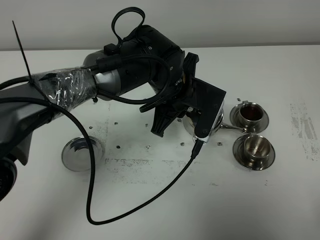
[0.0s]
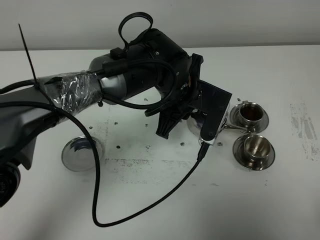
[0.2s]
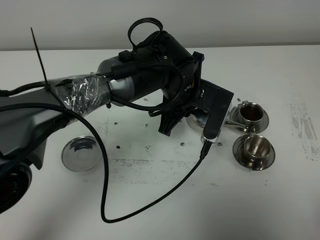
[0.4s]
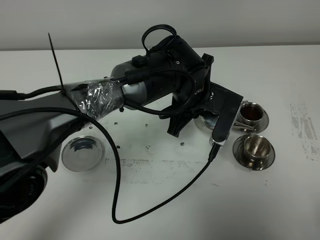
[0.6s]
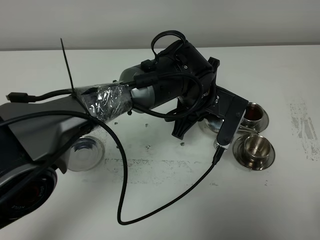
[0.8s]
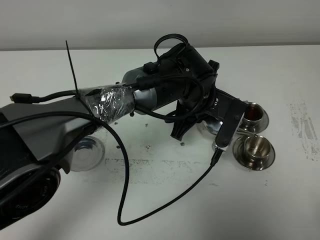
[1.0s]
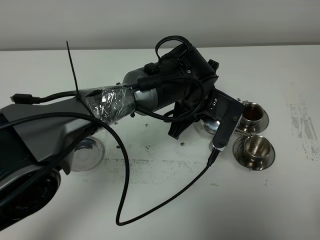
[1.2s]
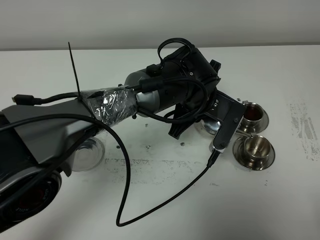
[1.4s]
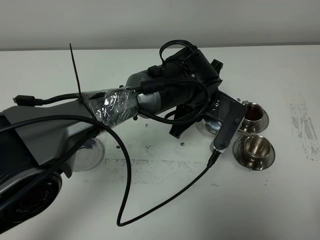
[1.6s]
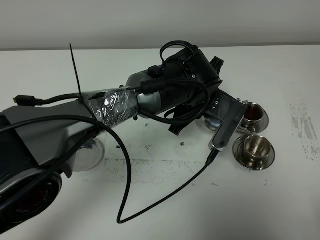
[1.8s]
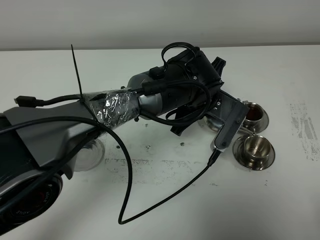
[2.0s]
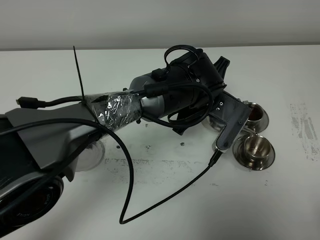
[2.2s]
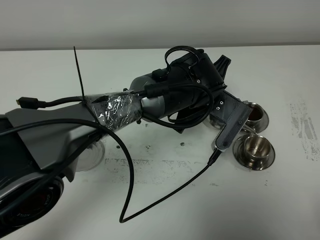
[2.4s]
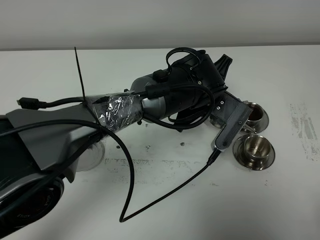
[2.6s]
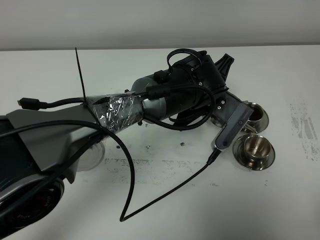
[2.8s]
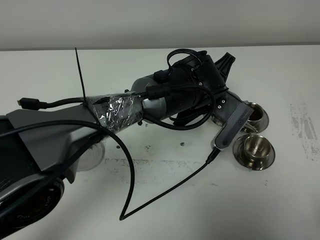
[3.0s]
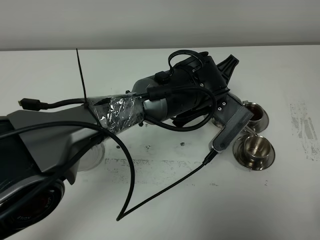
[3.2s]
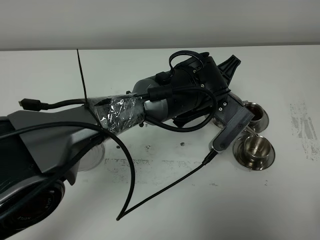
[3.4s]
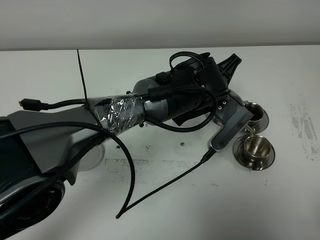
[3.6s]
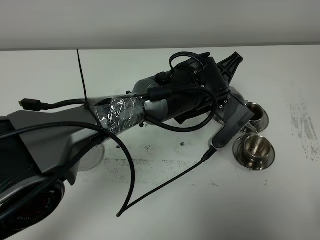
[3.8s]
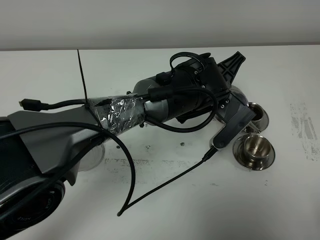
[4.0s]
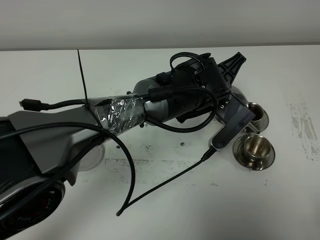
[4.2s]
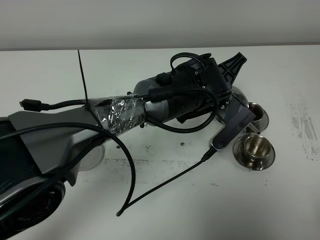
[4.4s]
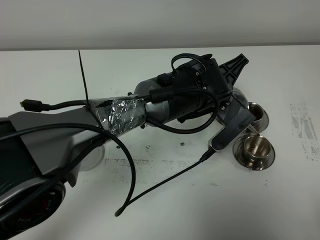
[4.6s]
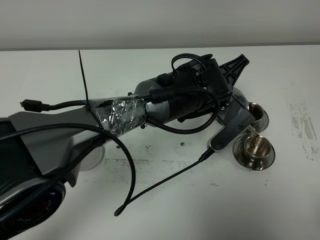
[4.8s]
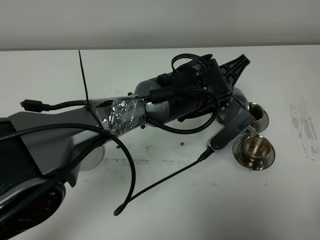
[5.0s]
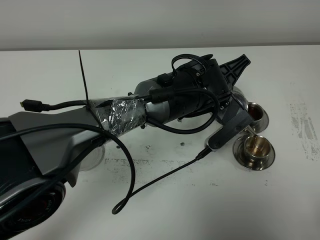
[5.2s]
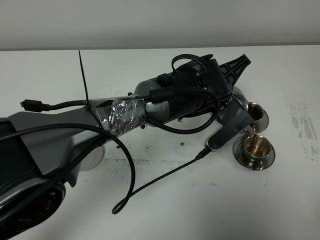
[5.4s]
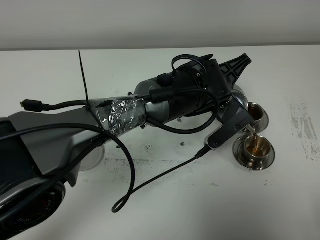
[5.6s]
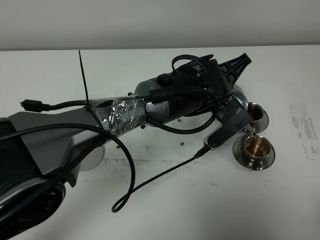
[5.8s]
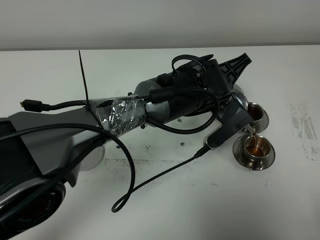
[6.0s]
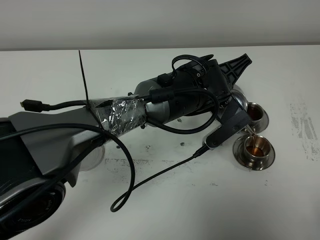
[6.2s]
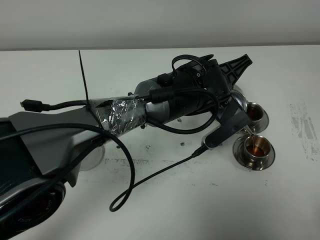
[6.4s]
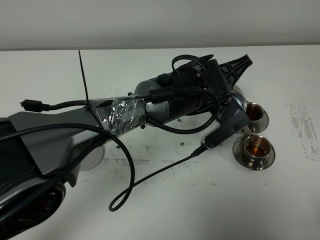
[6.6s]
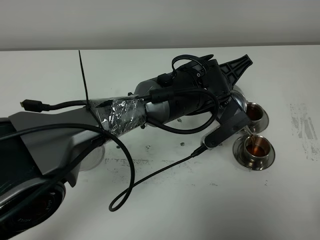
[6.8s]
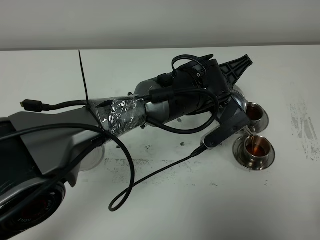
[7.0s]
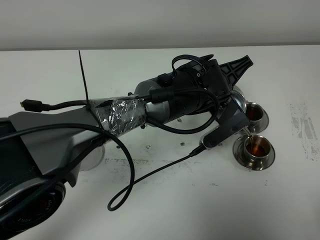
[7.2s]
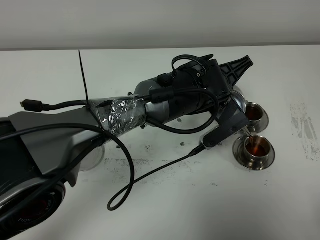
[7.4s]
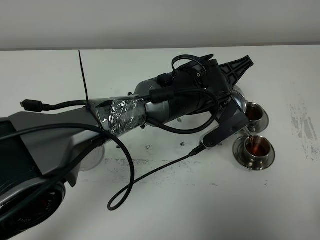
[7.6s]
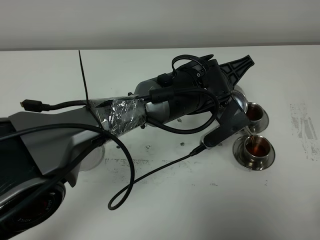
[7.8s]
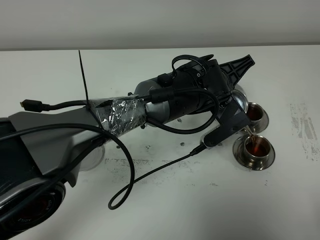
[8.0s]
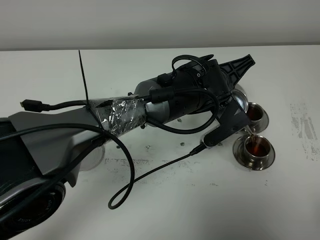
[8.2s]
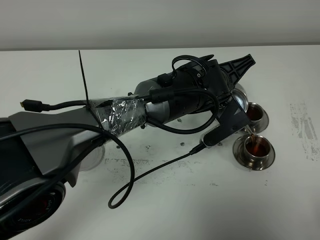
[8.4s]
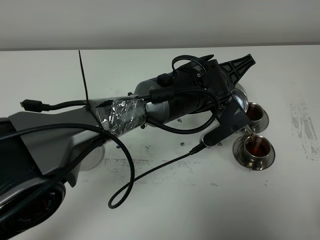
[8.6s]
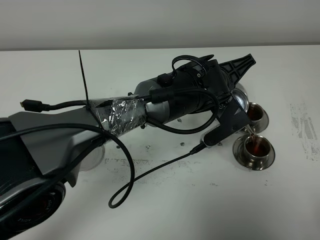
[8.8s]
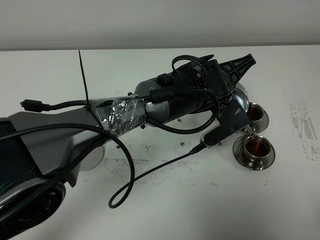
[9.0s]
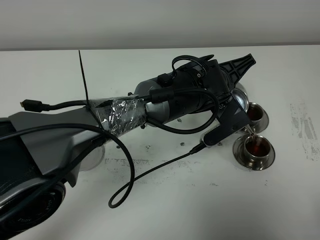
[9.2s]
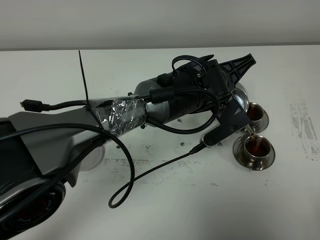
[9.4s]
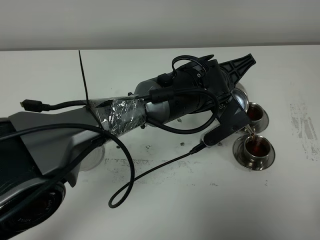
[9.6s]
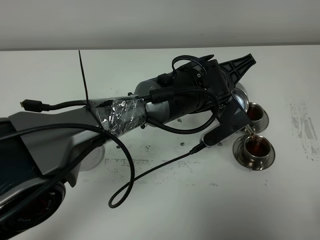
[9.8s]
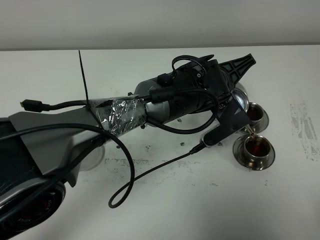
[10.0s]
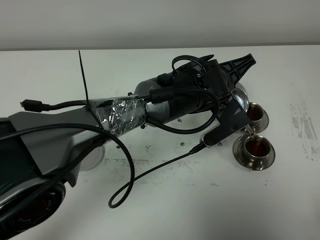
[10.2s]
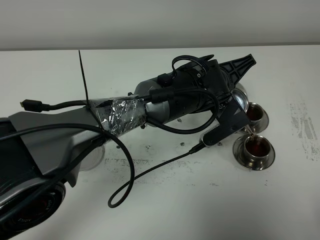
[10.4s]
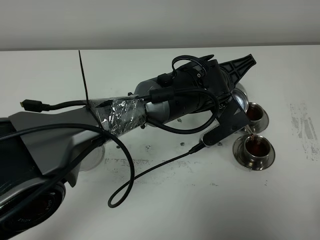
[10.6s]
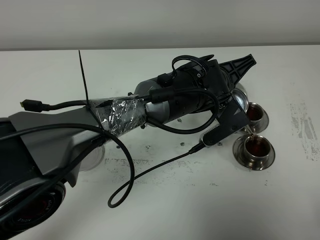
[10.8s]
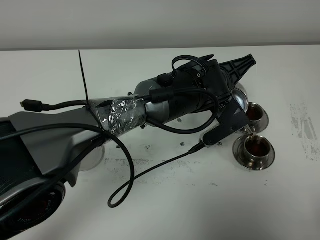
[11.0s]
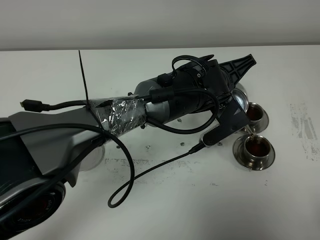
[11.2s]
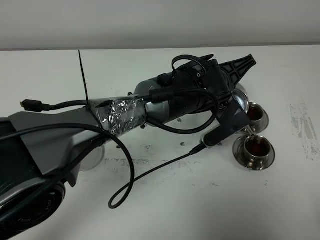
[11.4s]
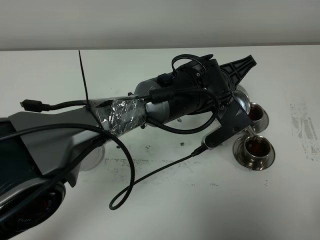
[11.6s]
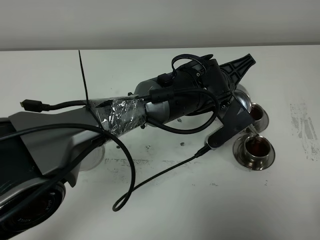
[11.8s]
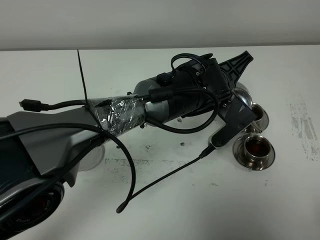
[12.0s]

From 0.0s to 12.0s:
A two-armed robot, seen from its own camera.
Task of the whole recording: grasp the stainless steel teapot and pour the tea into the two stainless steel teacups one by one, put the stainless steel teapot back in its original place.
From 1.6s to 4.4s: There are only small adjustments of the grippers.
From 4.4s to 6.0s: The grippers stay close to where they were, moving slightly.
From 6.0s to 7.6s: Both grippers stay put.
From 7.6s to 10.4s: Neither gripper changes place.
From 10.4s to 12.0s: The grippers stay close to where they were, moving slightly.

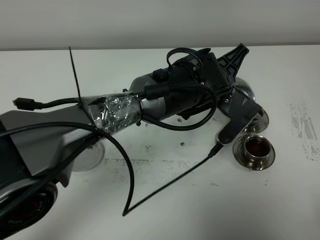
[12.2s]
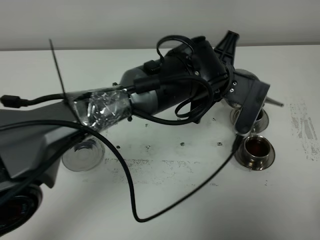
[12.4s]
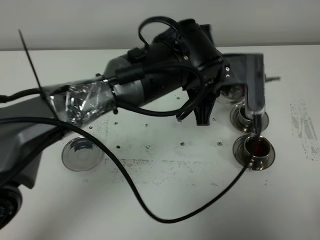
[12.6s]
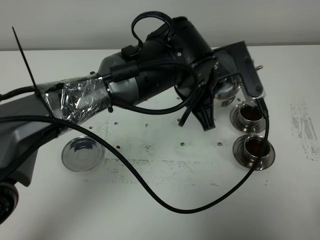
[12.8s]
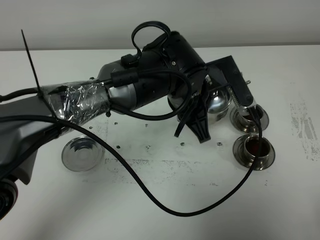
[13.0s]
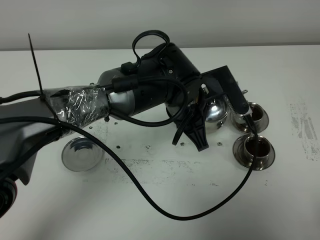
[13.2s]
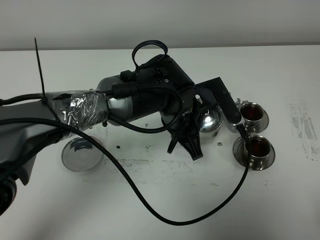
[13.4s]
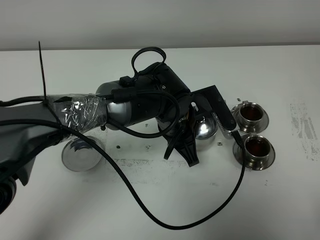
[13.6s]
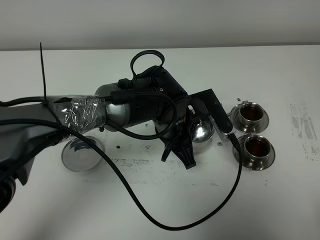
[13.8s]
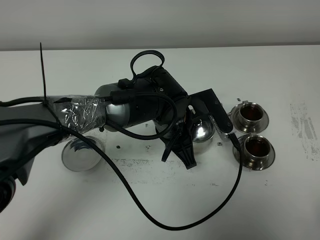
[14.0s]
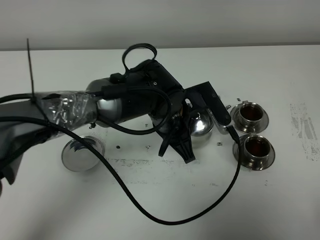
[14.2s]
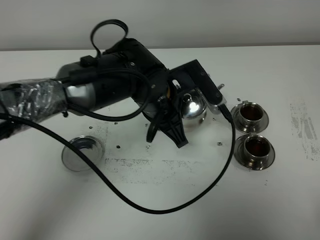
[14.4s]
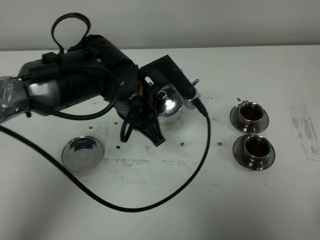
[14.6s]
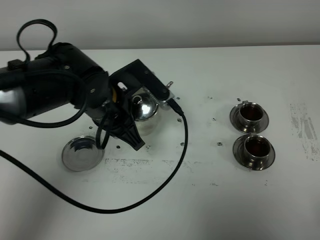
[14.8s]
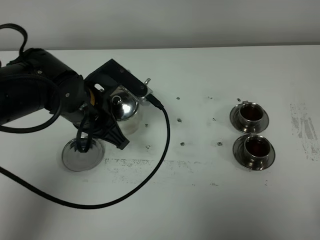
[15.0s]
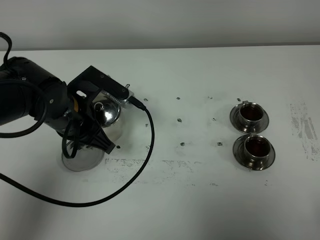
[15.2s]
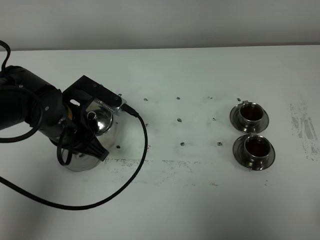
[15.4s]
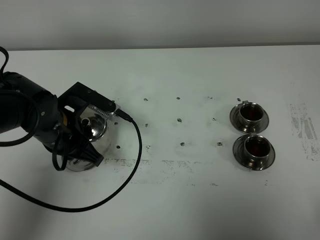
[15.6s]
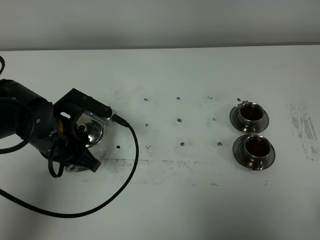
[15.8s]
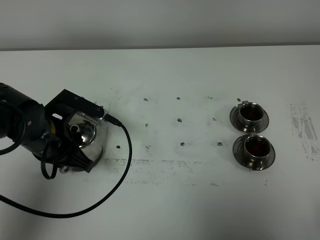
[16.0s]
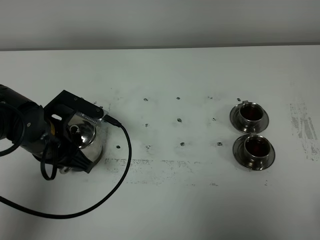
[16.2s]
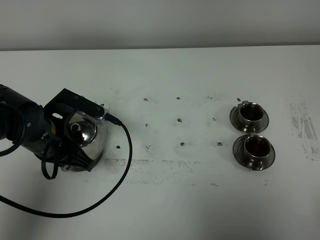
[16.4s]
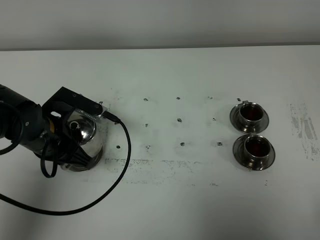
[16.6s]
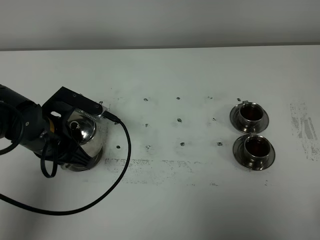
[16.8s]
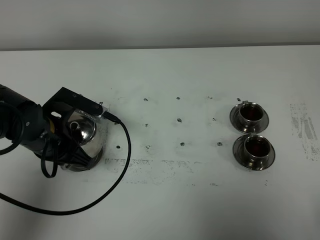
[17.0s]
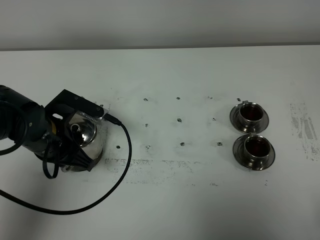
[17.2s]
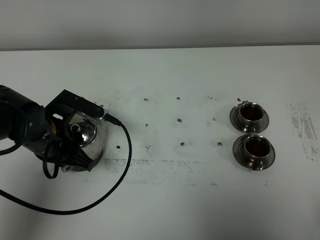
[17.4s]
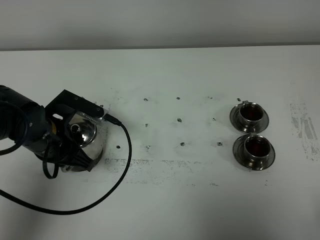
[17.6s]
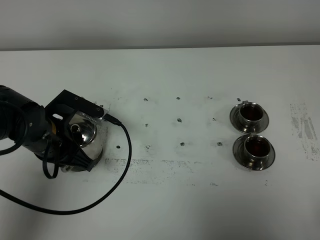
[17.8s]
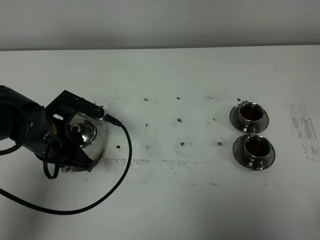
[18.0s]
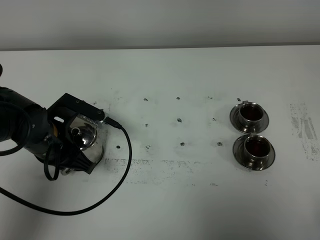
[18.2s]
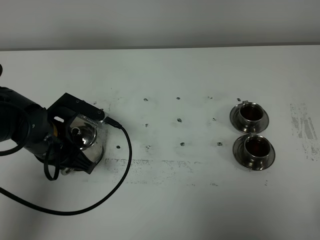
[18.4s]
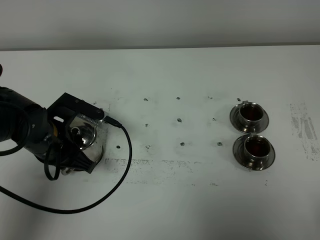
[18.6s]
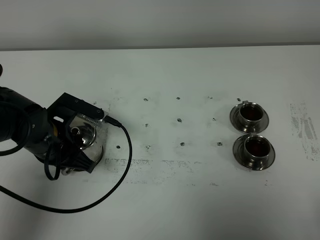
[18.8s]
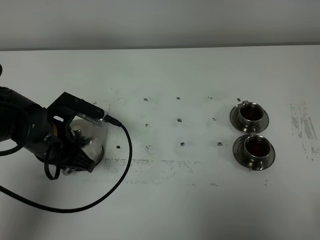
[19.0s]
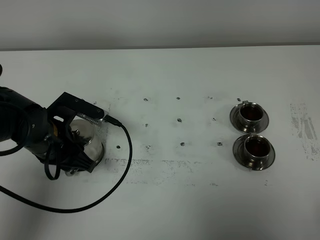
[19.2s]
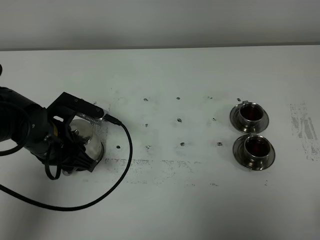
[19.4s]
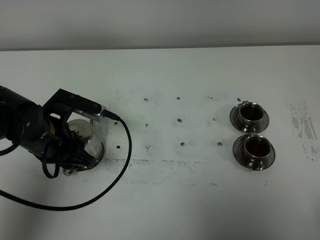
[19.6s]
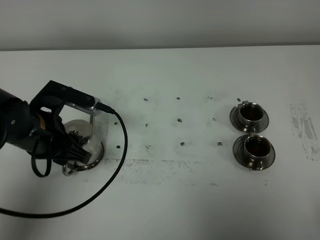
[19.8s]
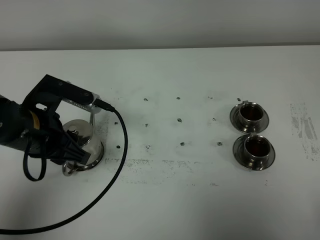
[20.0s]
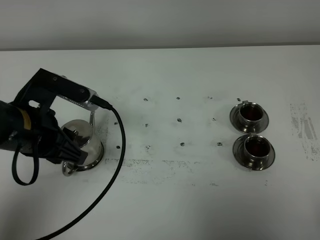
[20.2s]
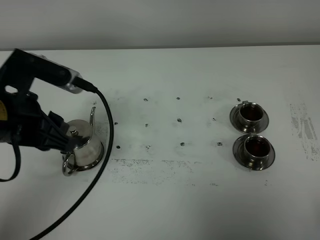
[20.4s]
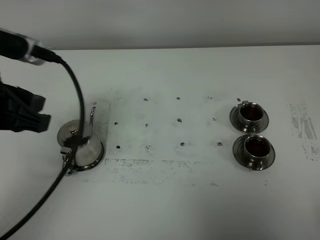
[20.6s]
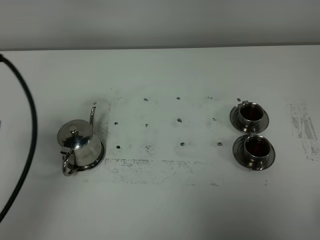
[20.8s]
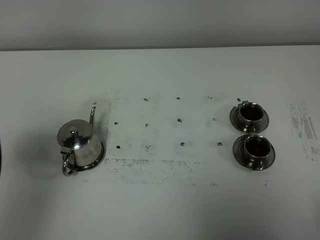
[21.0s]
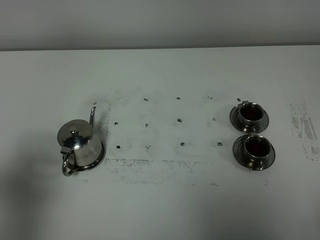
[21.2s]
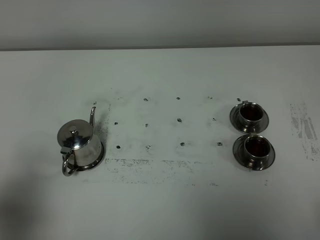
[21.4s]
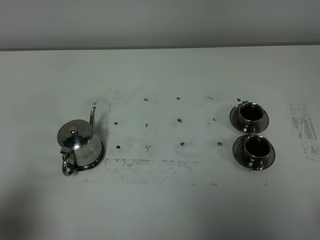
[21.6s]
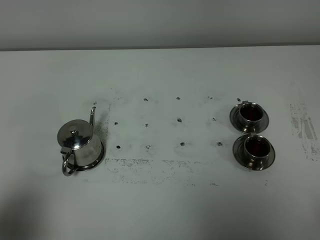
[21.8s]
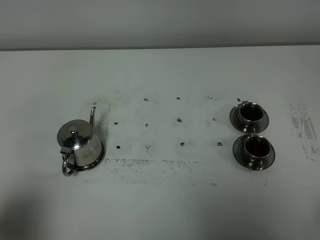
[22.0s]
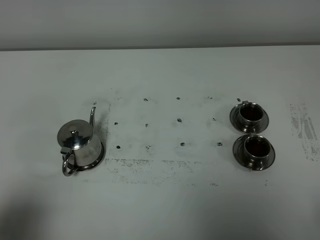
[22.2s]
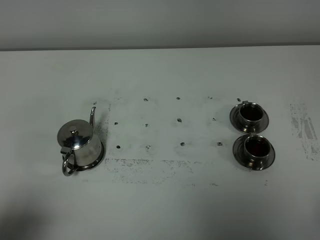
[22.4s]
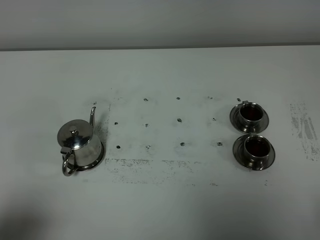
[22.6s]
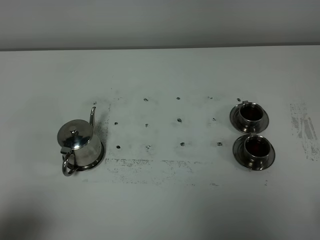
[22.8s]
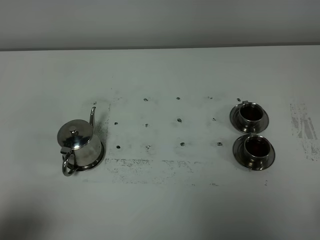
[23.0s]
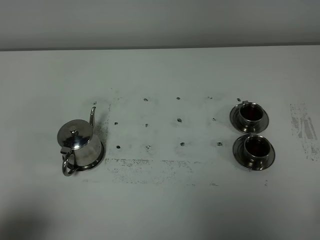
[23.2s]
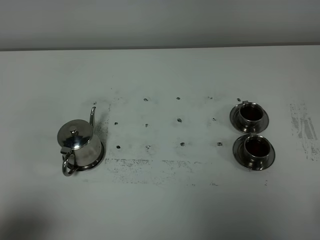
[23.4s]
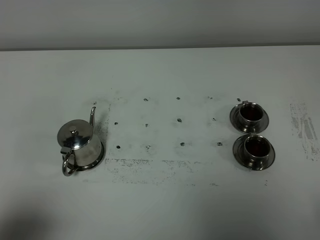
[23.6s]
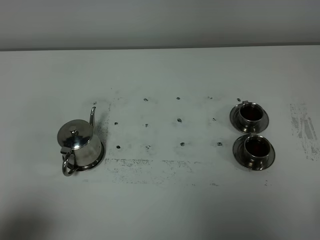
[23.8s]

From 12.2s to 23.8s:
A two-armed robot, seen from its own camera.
Task of the whole recording: grasp the stainless steel teapot and pour the tea into the two stainless steel teacups one by one, put the stainless steel teapot back in its original place.
From 12.2s to 13.6s: The left gripper shifts roughly 10 cm to the left and downward.
From 13.6s to 15.0s: The left gripper is displaced to the left by some 15 cm.
From 15.0s to 16.6s: The left gripper heads to the left, covering roughly 5 cm.
From 16.6s to 18.0s: Both grippers stay about where they are.
From 18.0s to 19.4s: The left gripper opens up.
From 19.4s to 21.0s: The left gripper shifts about 25 cm upward, backward and to the left.
From 21.0s to 22.4s: The left gripper is displaced backward and downward by some 15 cm.
